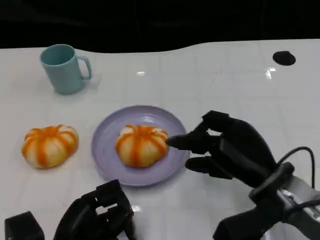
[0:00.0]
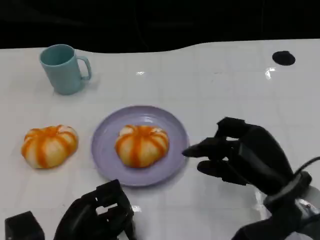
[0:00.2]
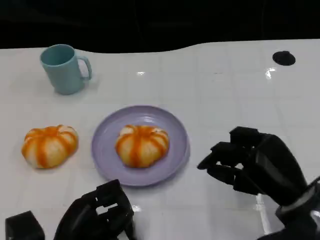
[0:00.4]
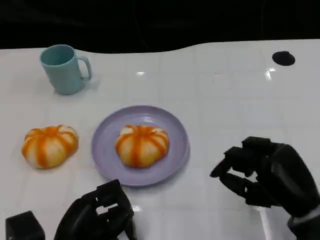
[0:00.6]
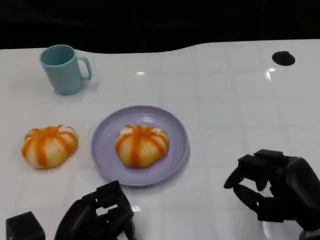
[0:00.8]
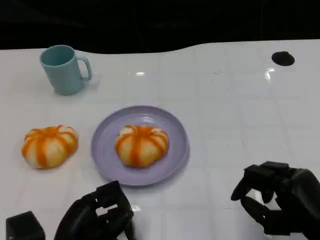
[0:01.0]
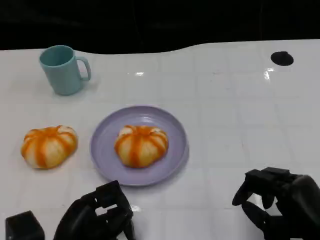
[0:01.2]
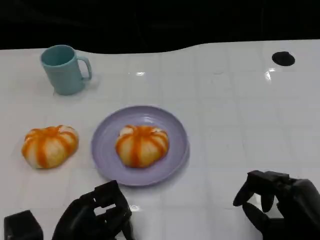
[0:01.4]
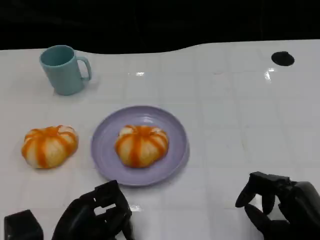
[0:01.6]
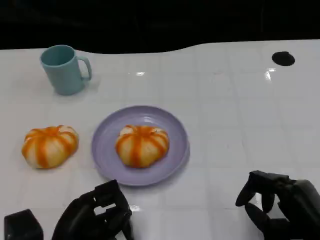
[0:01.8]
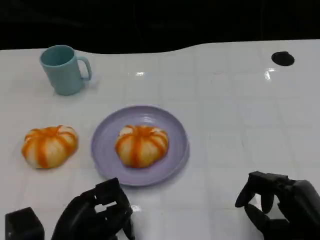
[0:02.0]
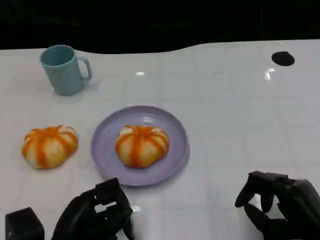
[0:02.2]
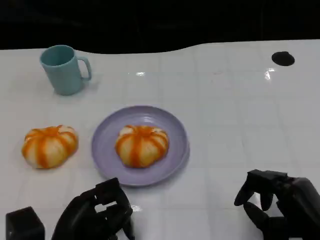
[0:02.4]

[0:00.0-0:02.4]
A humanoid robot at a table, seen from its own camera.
Task of the whole recording: Grasp the bread from the table and place it into the plate.
0:00.0 to 0:01.2: The right hand travels backward and to the right by some 10 cm.
0:01.2 to 0:02.4: The hands move only a little.

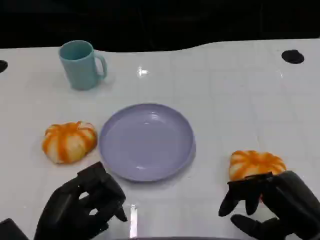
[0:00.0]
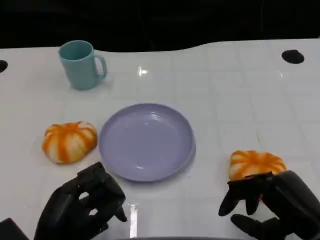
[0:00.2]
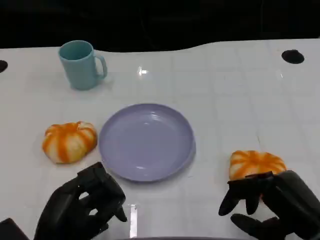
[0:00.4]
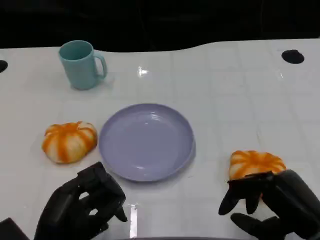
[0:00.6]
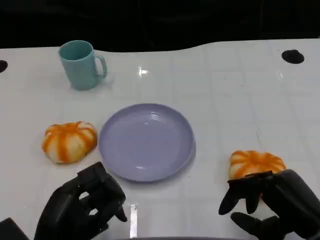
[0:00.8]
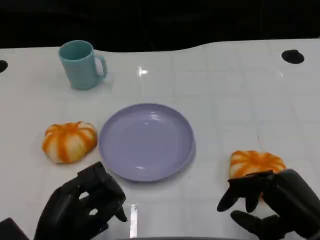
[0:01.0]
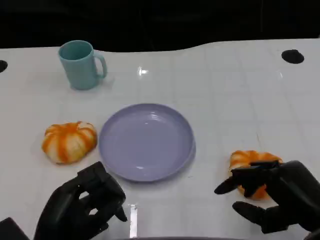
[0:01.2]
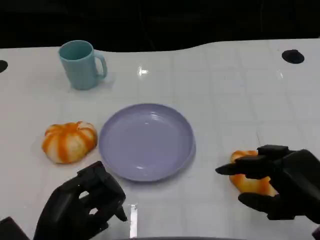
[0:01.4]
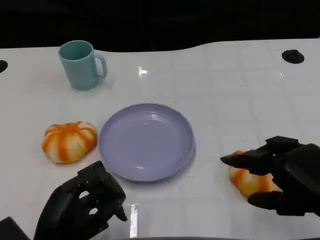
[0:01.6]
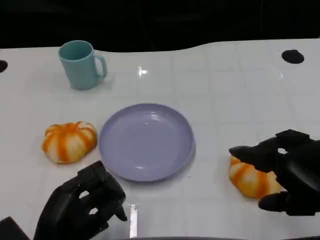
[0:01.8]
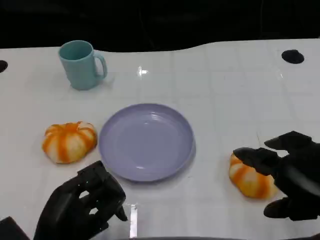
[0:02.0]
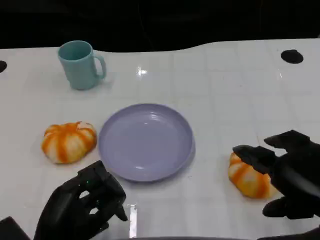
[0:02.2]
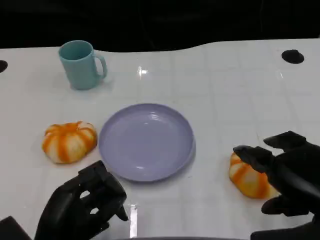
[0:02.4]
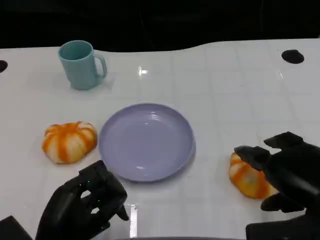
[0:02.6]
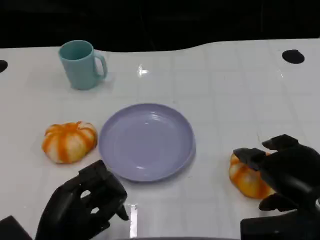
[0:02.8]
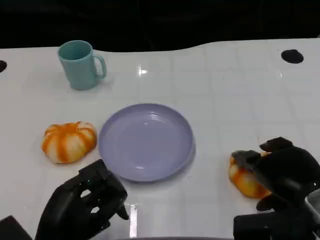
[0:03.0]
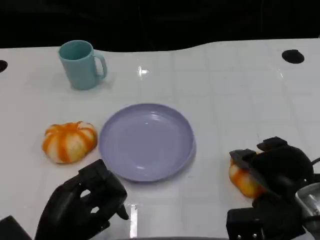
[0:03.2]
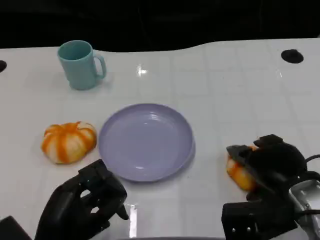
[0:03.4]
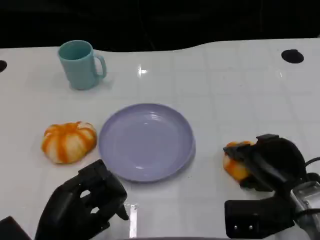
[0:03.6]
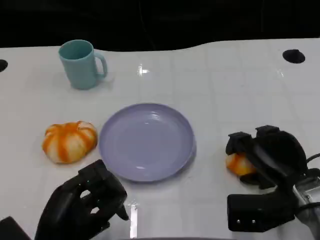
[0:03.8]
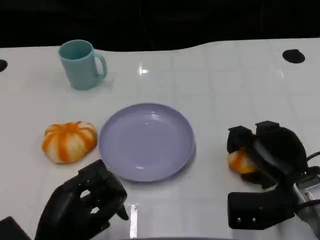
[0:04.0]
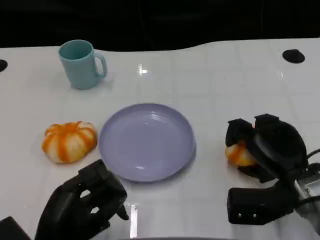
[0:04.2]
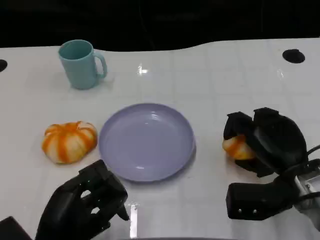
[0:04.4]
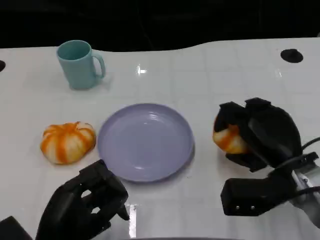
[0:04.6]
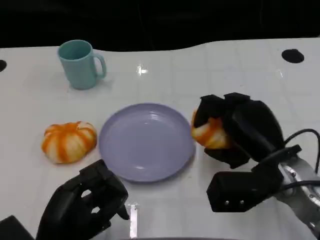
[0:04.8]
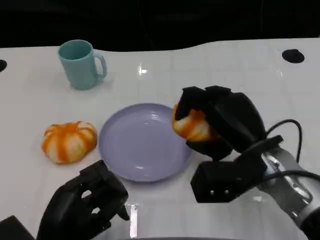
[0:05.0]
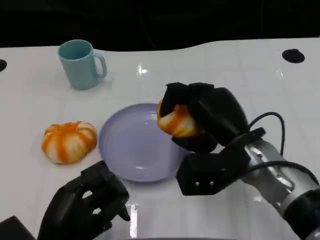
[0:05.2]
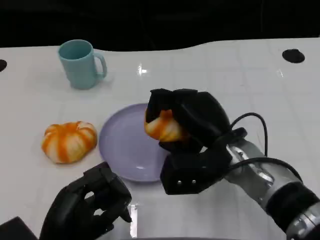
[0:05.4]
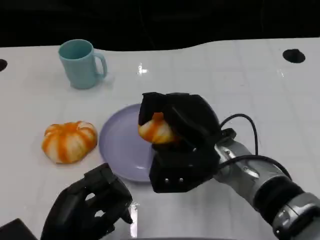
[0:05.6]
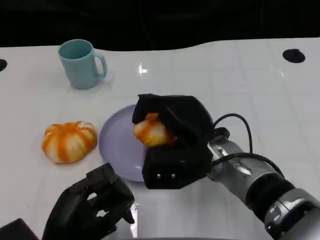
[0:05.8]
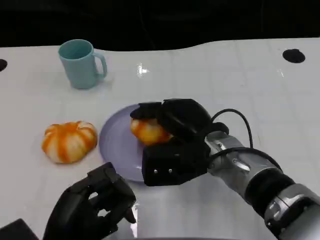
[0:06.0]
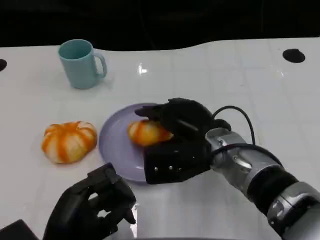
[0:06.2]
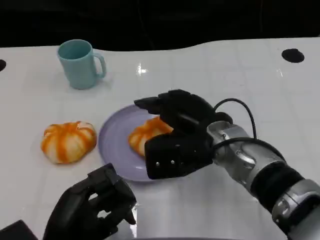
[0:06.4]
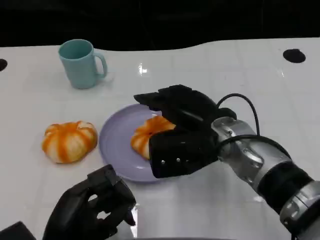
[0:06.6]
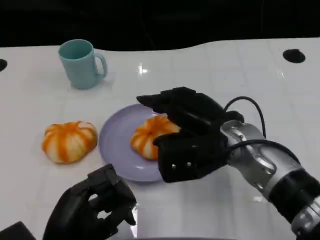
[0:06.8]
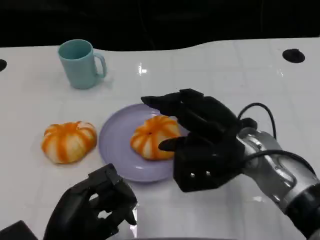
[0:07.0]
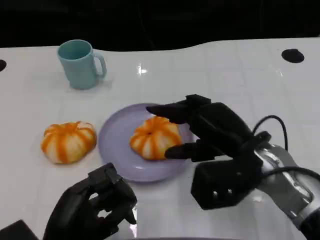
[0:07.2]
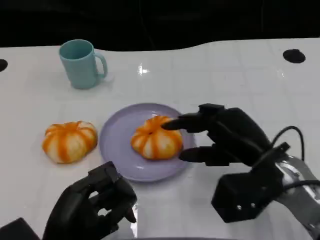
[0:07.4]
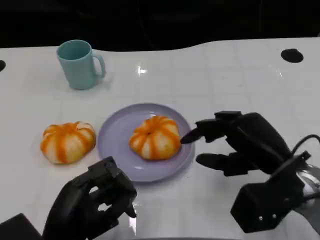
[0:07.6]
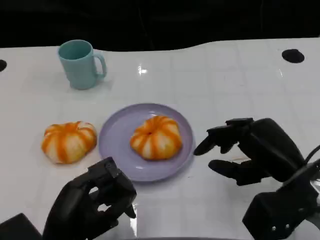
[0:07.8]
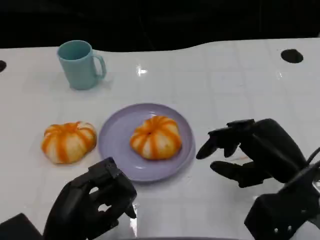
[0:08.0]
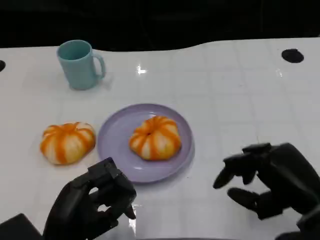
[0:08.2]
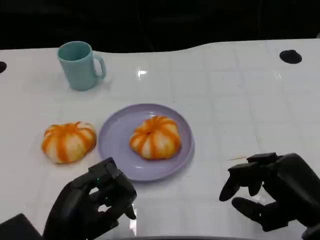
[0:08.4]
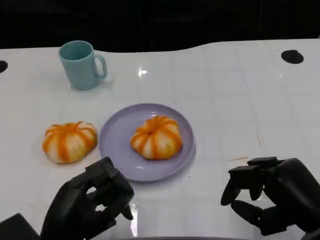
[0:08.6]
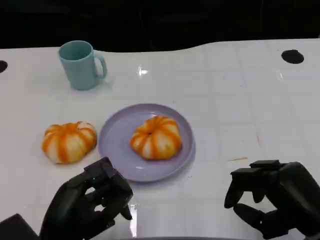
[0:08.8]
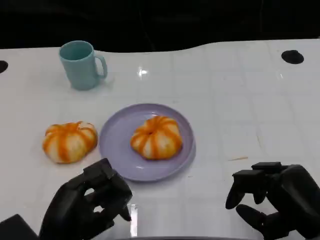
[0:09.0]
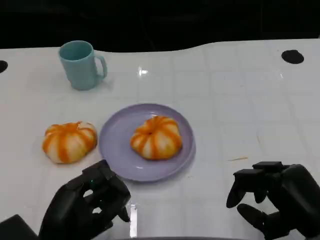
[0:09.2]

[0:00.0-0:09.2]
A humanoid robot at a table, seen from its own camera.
Task of the whole recording: Grasp the bread from the table and place it into the plate.
0:00.0 to 0:01.6: The right hand travels upward by approximately 5 cm.
0:01.6 to 0:03.0: The right hand changes place by roughly 5 cm.
0:03.0 to 0:04.6: The right hand is displaced forward by approximately 5 cm.
0:04.6 to 0:06.2: The right hand goes some 10 cm to the left.
0:06.2 to 0:07.6: The right hand is displaced to the right and backward by some 15 cm.
0:07.6 to 0:09.2: The right hand shifts approximately 5 cm backward.
